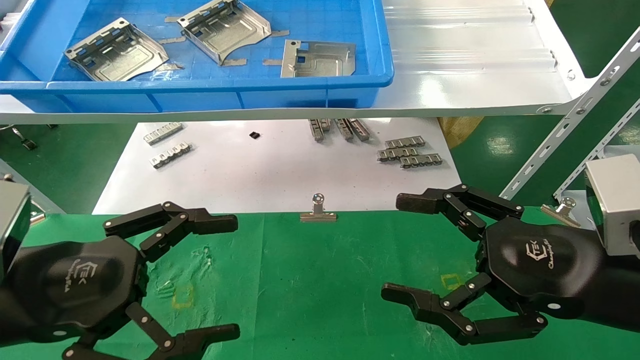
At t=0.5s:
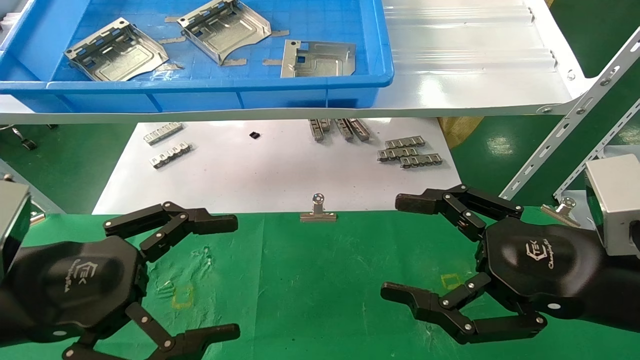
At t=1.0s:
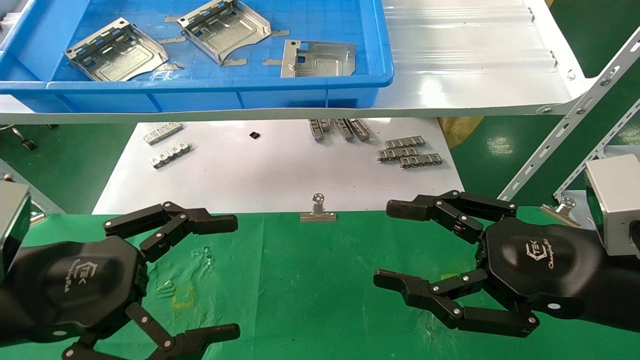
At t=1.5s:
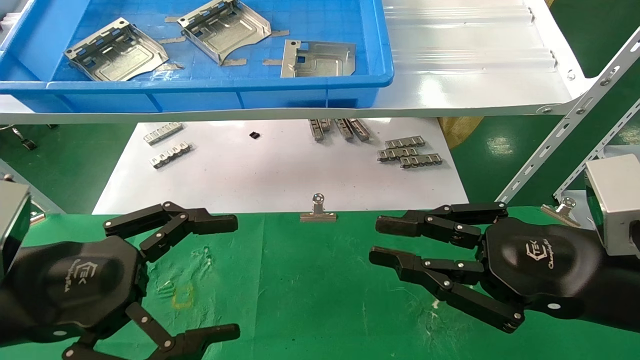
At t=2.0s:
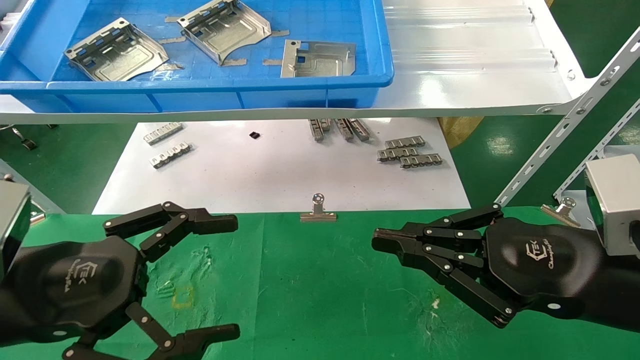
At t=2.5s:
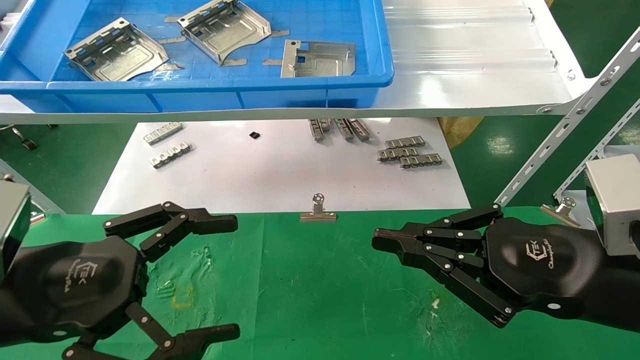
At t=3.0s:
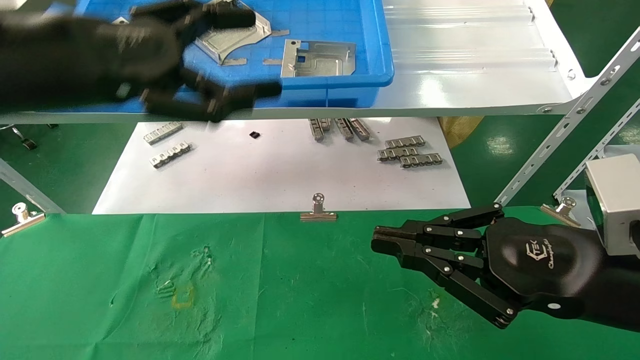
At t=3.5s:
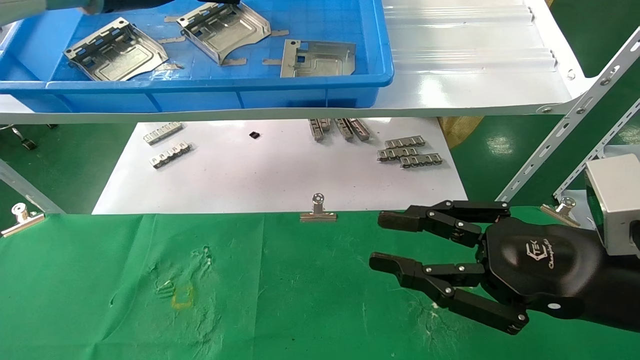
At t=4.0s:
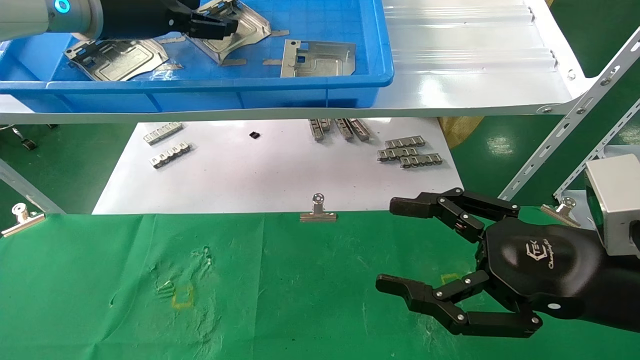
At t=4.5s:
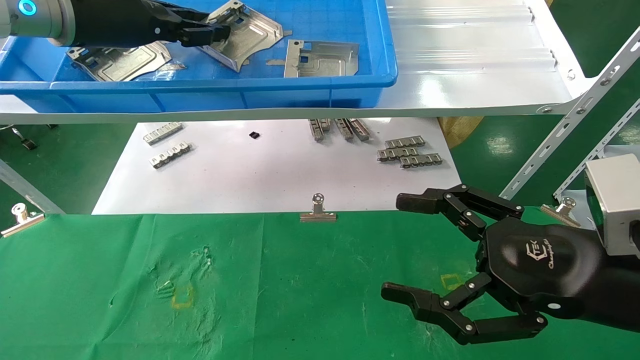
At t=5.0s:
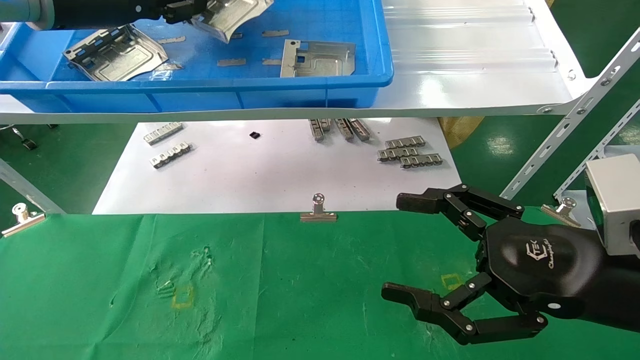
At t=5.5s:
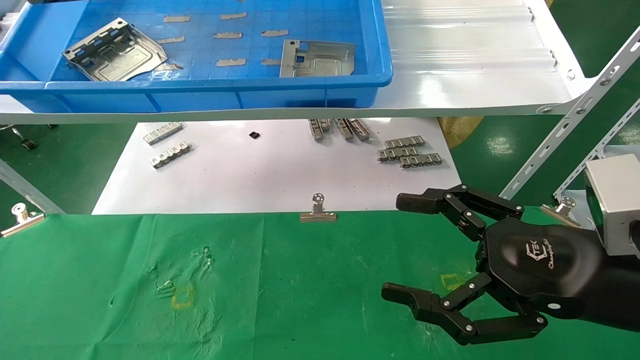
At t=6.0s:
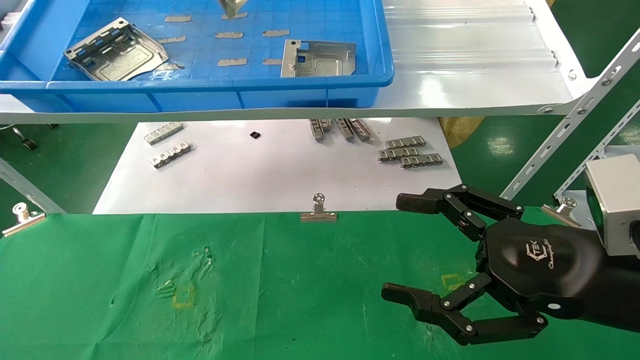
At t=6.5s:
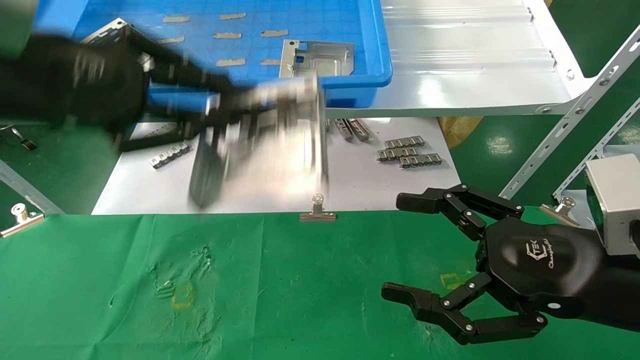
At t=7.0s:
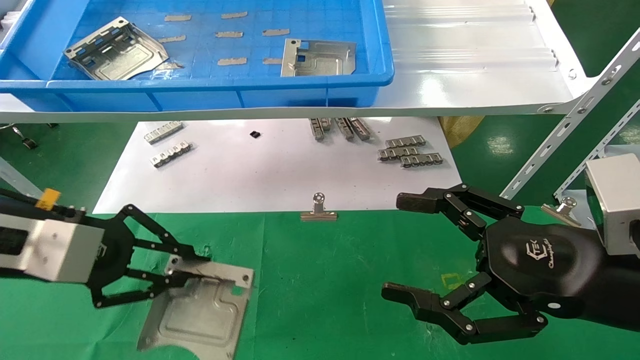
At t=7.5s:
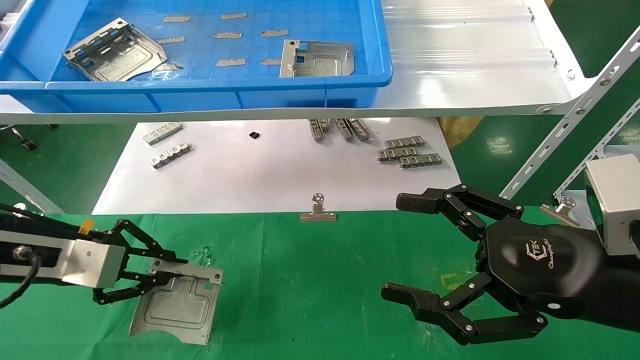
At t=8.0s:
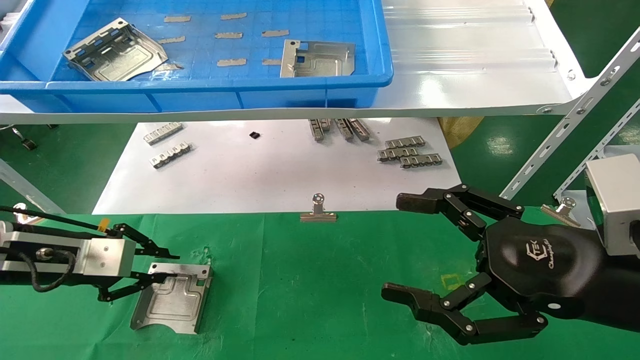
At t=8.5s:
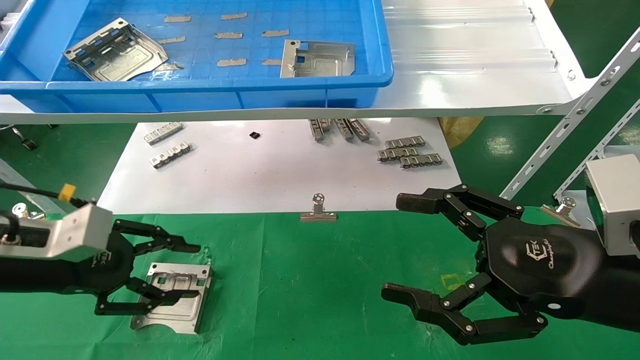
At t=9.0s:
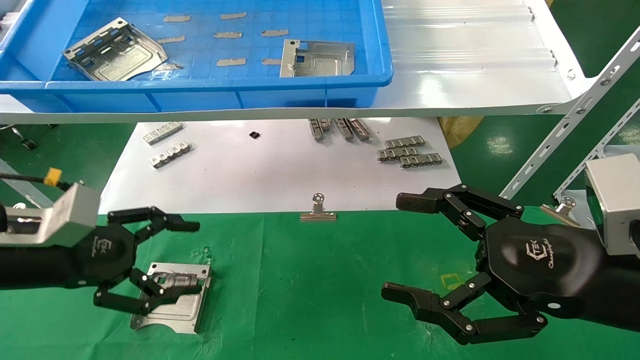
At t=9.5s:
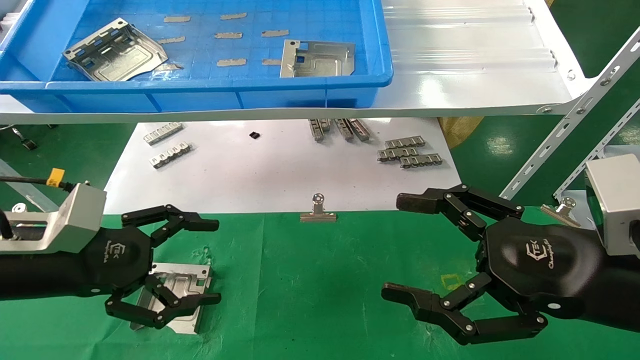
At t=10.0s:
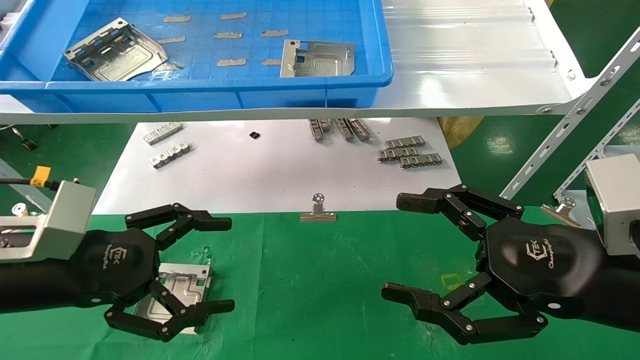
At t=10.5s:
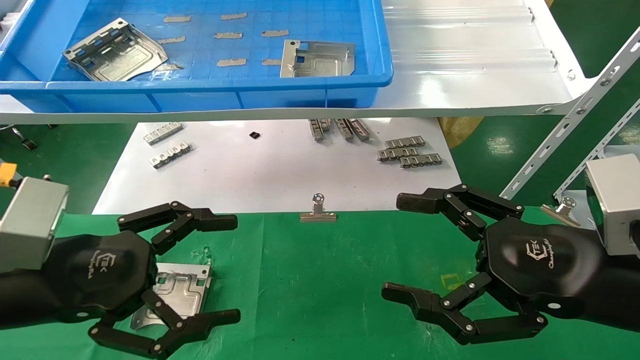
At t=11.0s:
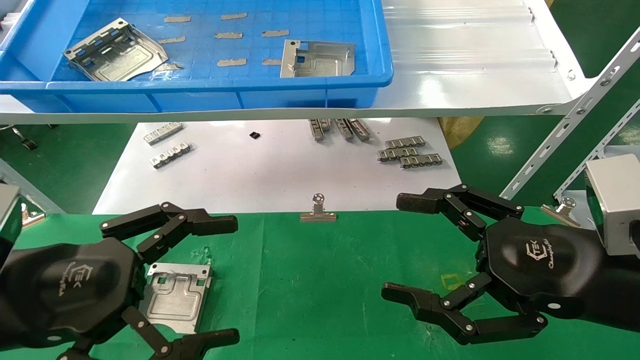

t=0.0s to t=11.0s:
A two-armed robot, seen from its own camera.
Task of the whole recording: use the mechanical arm to pick up the parts and place them on the table.
Step, t=3.0s to t=4.5s: Pick up the hard drive bracket from the feeding area.
Step, t=5.0s to t=8.0s: Place the hard drive bracket into the box.
t=0.0s to t=2.0s: The right gripper closes.
t=2.0s to t=3.5s: The left gripper heads upward and forward, covering roughly 35 cm.
t=3.5s to t=5.5s: The left gripper closes up, while the right gripper opens its fingers.
t=5.5s to t=7.5s: The left gripper goes approximately 25 cm downward.
t=7.5s to t=9.0s: The left gripper opens up.
t=9.0s to t=11.0s: The left gripper goes roughly 10 cm backward and to the right.
